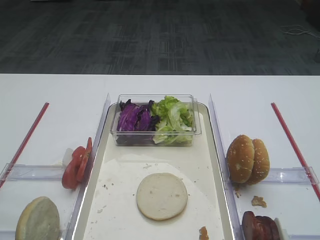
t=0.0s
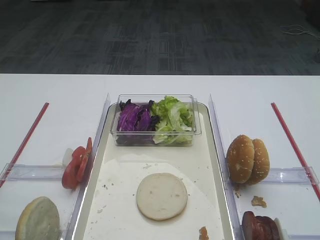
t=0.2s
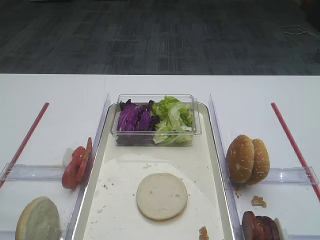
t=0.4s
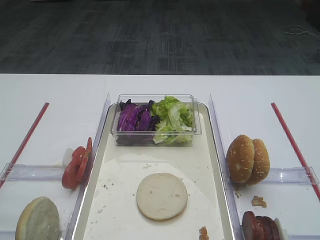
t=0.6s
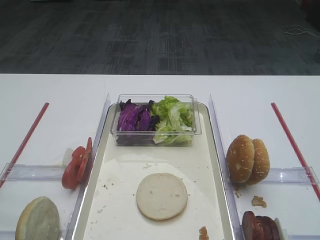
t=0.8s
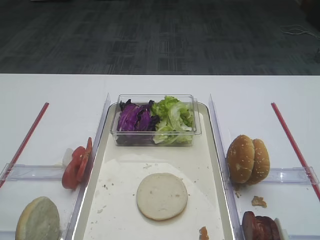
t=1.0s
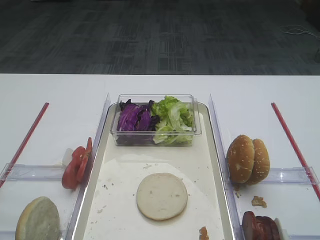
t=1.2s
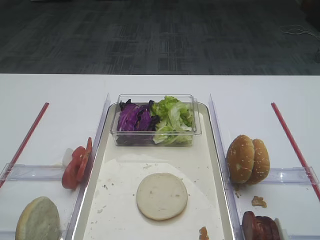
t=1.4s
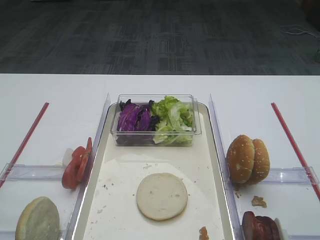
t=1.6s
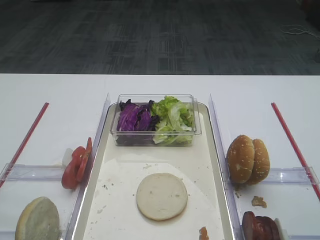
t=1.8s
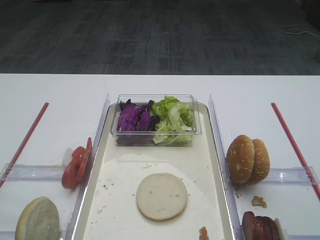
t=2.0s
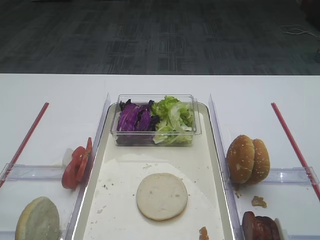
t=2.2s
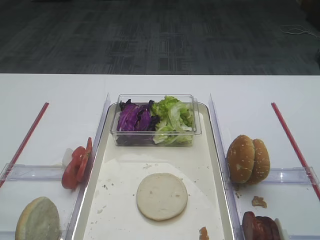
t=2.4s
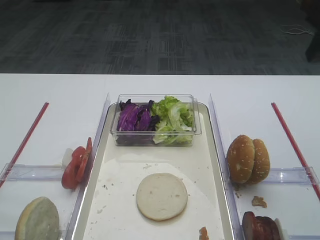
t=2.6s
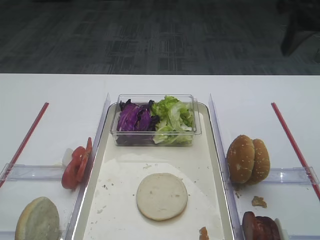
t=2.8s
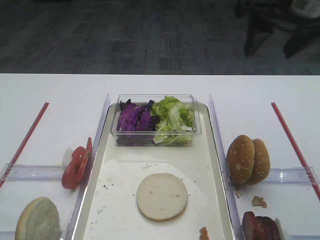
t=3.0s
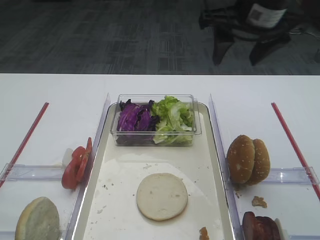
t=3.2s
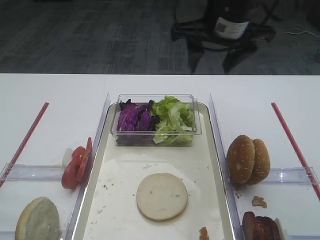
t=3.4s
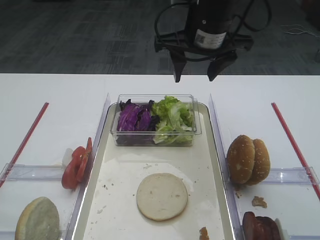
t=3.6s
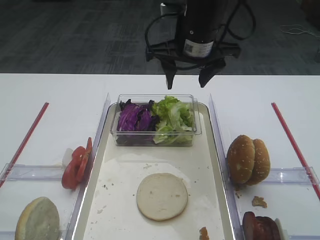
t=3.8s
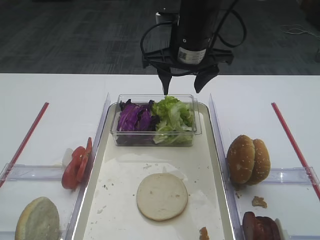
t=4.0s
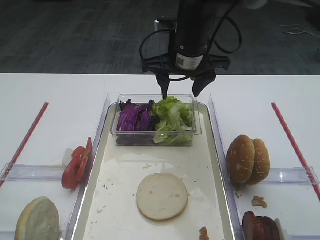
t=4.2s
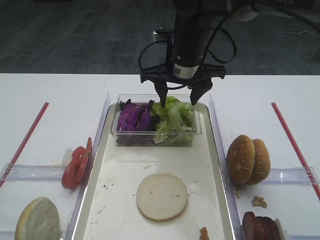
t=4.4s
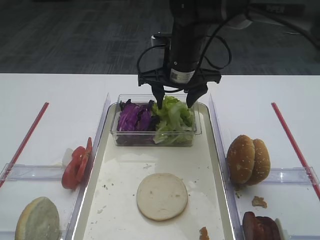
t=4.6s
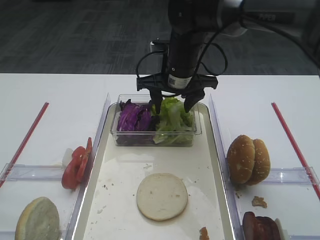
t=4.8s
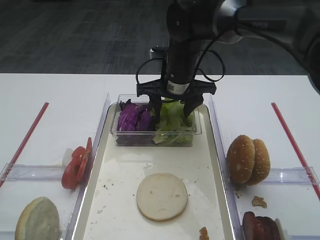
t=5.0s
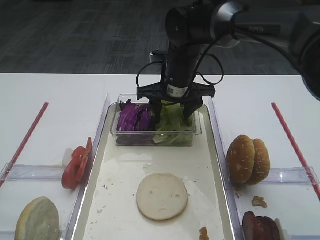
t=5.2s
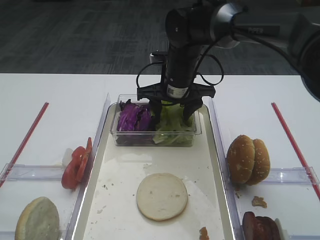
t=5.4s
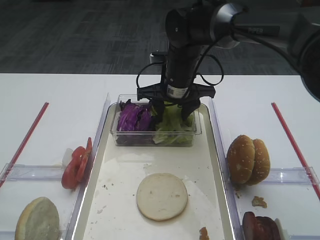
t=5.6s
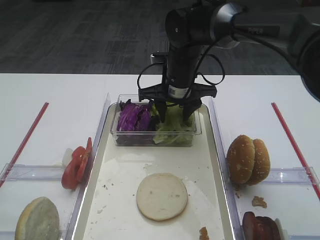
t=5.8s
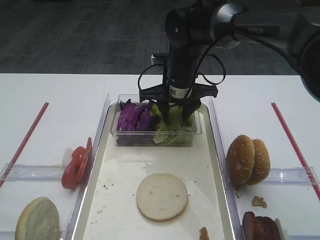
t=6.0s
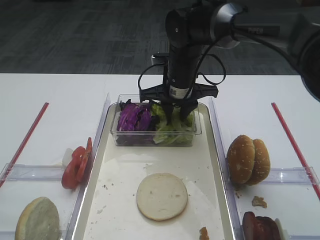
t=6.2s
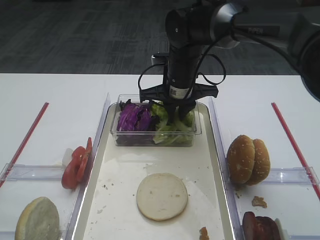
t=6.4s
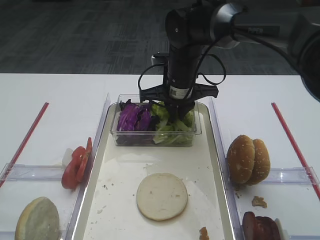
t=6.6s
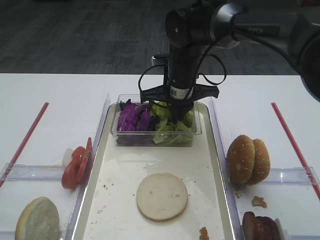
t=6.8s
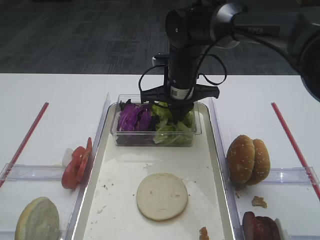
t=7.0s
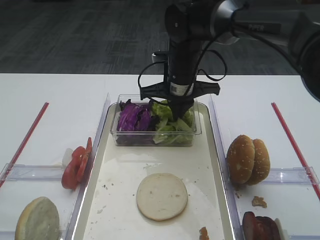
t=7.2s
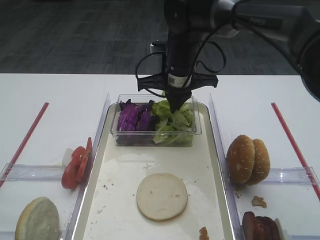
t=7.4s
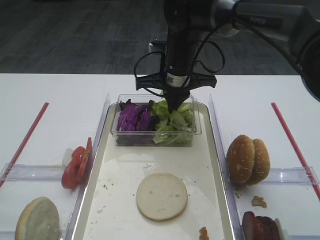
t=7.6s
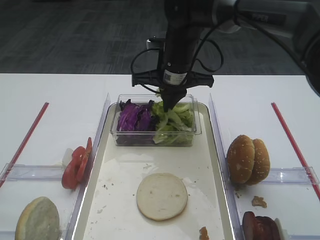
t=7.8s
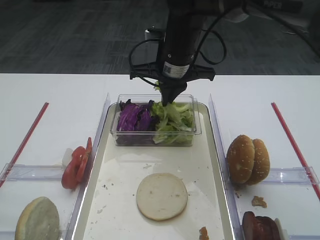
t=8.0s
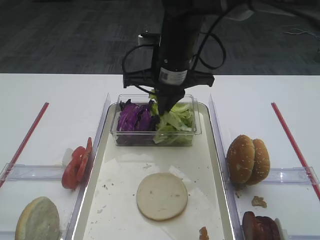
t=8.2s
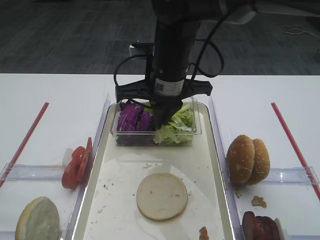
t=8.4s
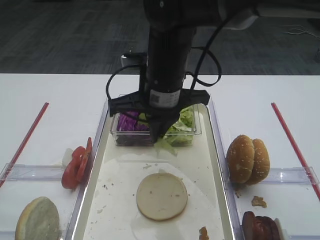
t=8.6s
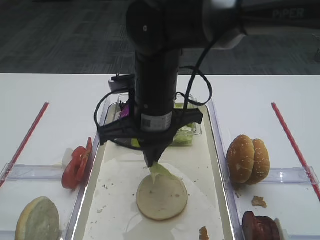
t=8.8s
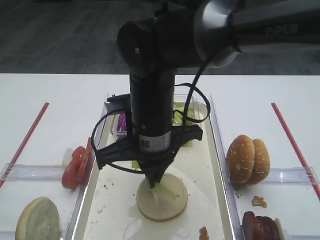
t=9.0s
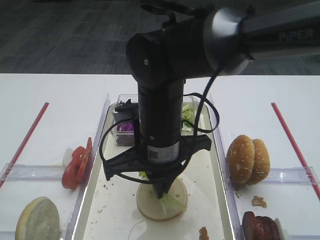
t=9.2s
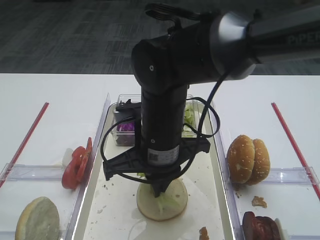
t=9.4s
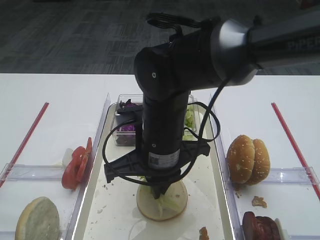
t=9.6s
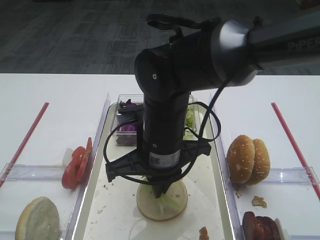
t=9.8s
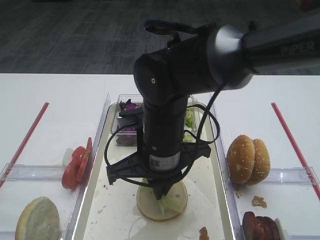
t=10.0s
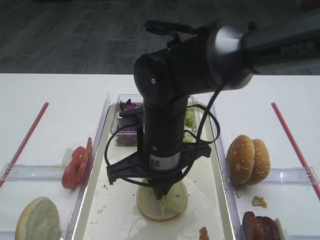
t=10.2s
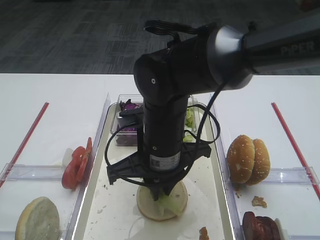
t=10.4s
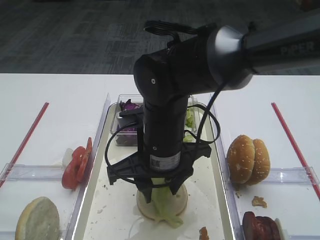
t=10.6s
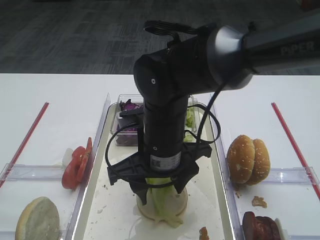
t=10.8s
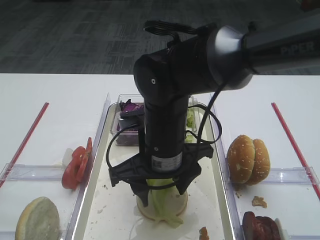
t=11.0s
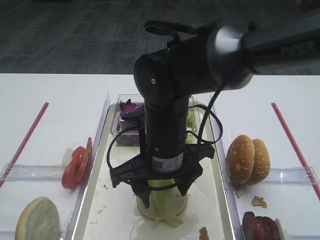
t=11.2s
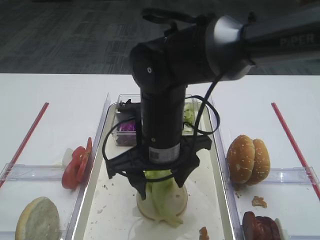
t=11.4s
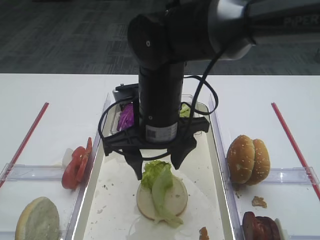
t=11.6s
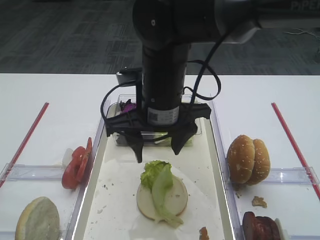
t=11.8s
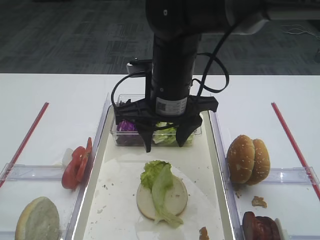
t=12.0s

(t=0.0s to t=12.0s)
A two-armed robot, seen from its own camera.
Step, t=0.0s - t=7.8s: Pick up the lettuce leaf with the right gripper.
Step, t=8.0s - t=11.4s: Place the lettuce leaf on the bread slice with the right gripper.
t=1.6s - t=3.0s: The right gripper moves forward, about 20 cm.
t=3.0s - t=4.4s: The right gripper travels to the left, downward and forward by about 20 cm.
t=4.4s - t=6.0s: The right gripper shifts approximately 5 cm downward.
t=6.0s - t=7.6s: The right gripper closes up.
t=7.6s - t=9.0s: The right gripper moves backward, roughly 15 cm.
t=9.0s - t=10.4s: The grippers move only a little.
t=10.4s - t=12.0s: The right gripper is displaced upward by approximately 5 cm, and opens.

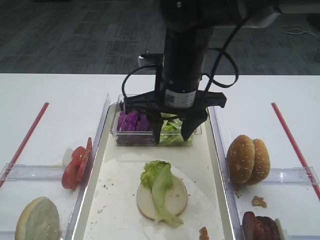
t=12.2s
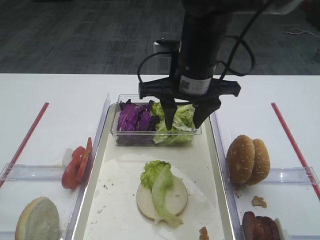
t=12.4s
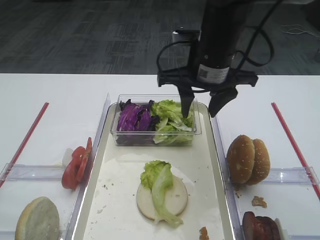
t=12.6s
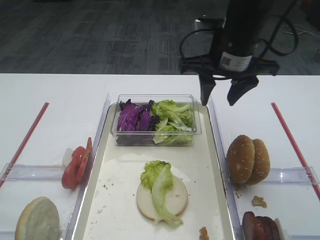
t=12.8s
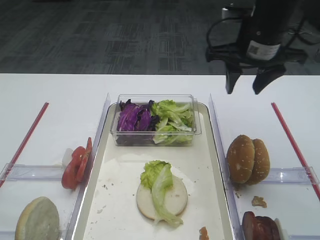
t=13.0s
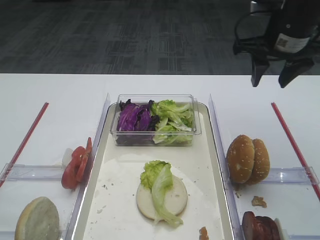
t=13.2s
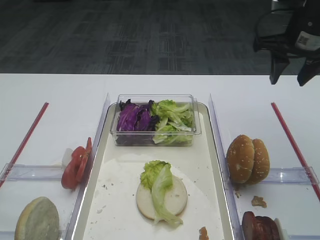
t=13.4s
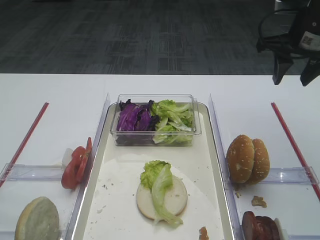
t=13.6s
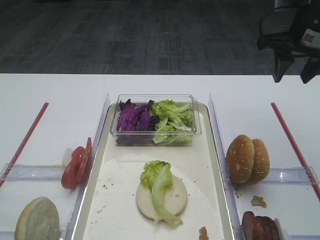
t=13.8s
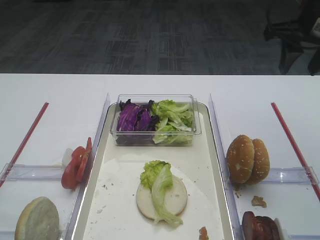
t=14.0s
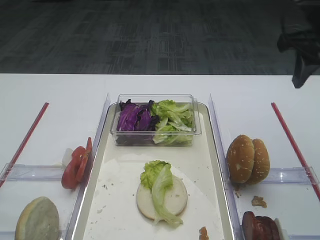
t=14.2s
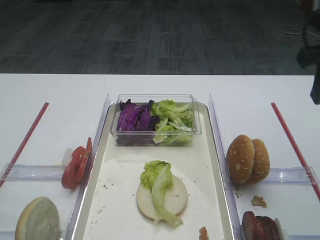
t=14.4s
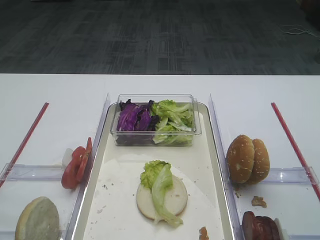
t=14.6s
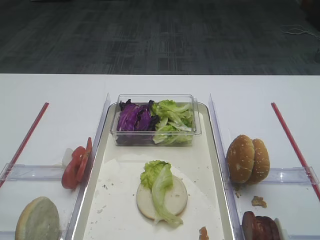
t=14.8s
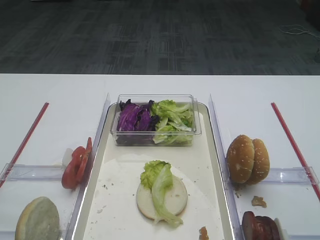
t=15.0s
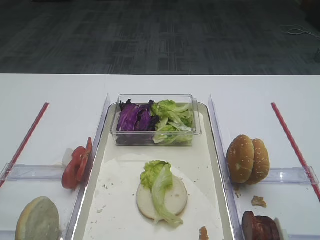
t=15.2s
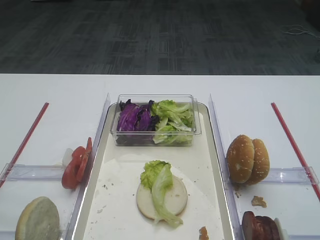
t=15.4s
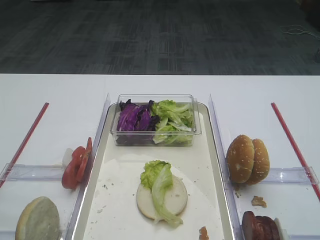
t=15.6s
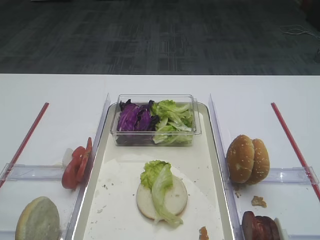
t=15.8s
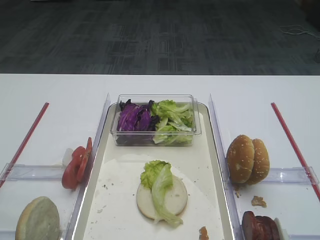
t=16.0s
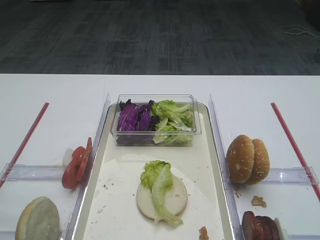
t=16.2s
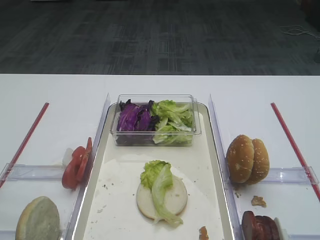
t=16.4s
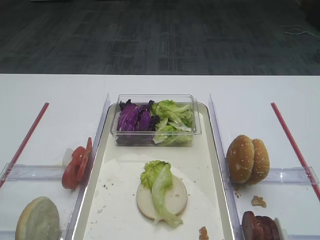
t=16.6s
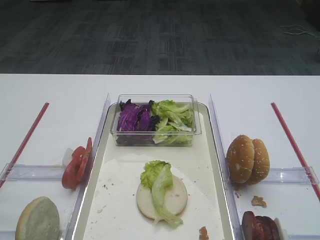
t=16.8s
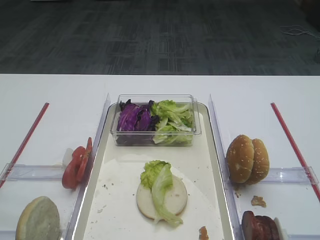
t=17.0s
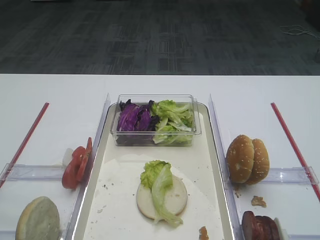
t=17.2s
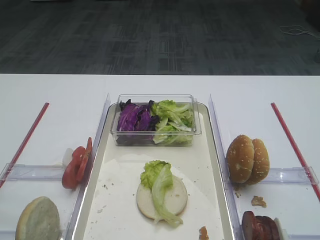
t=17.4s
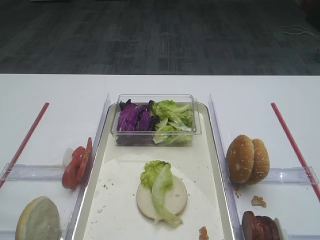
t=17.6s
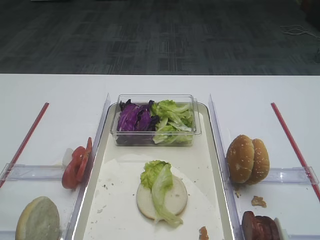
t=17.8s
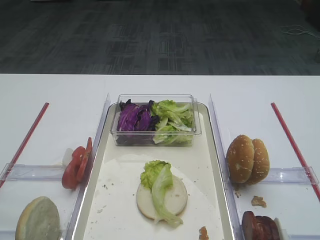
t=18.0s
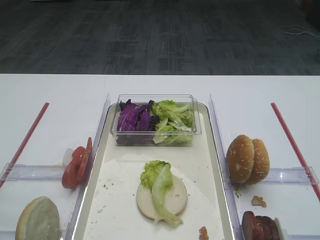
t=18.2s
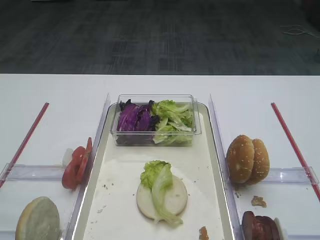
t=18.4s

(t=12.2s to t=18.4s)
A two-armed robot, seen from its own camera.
t=12.2s - t=13.8s: The right gripper travels to the right by approximately 20 cm.
t=13.8s - t=15.4s: The right gripper is displaced backward by some 35 cm.
t=16.8s - t=18.4s: The two grippers keep their place.

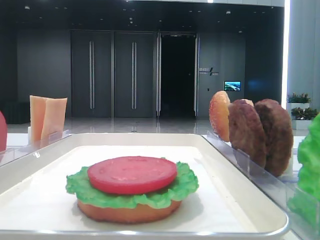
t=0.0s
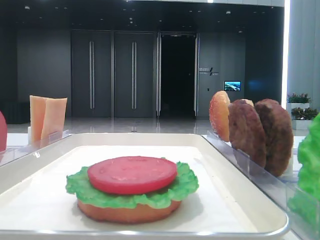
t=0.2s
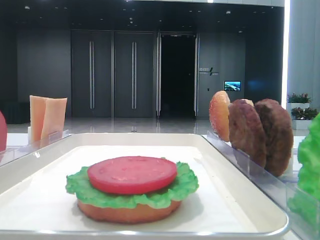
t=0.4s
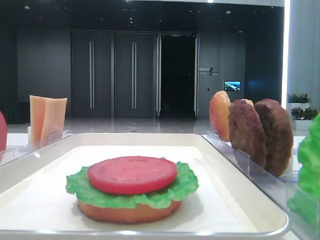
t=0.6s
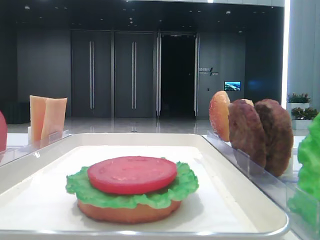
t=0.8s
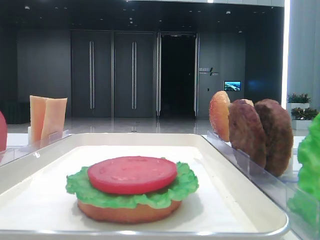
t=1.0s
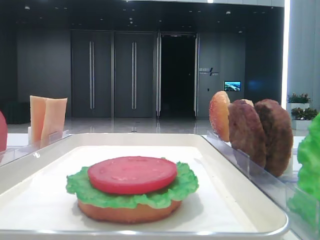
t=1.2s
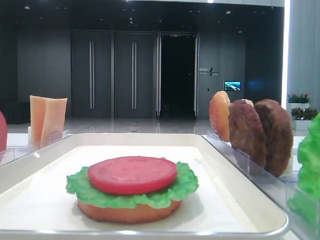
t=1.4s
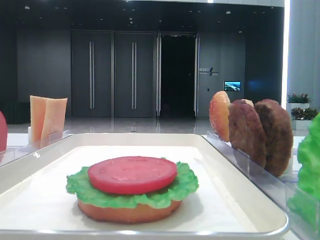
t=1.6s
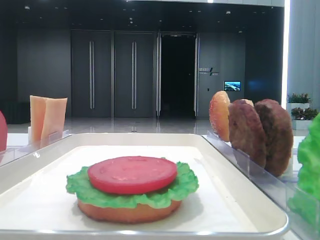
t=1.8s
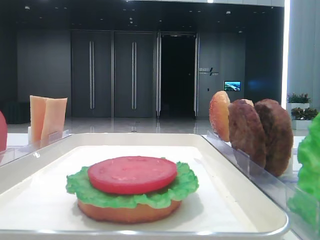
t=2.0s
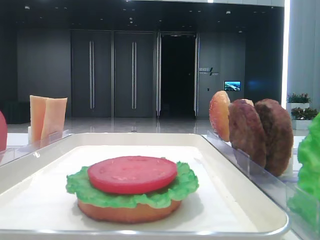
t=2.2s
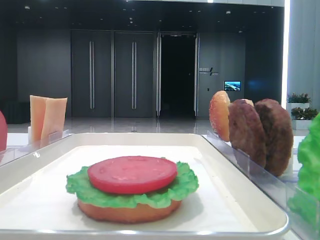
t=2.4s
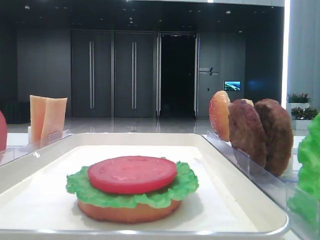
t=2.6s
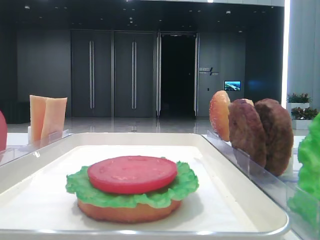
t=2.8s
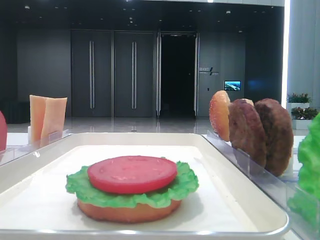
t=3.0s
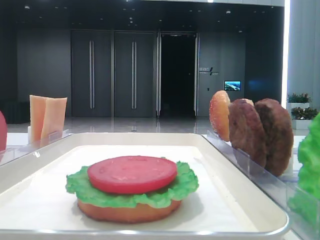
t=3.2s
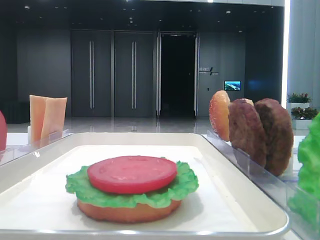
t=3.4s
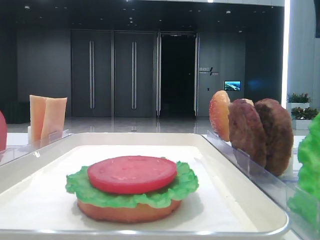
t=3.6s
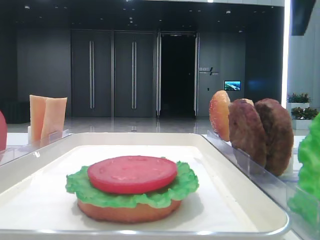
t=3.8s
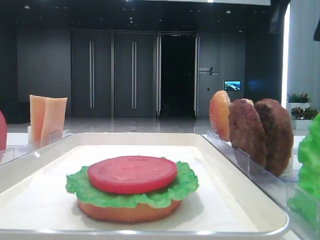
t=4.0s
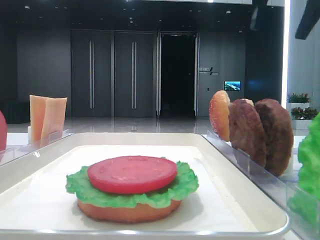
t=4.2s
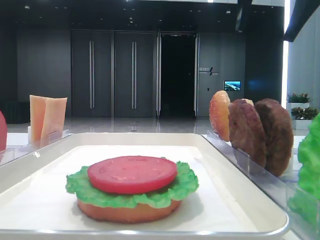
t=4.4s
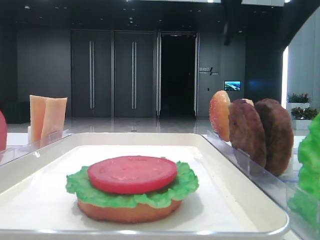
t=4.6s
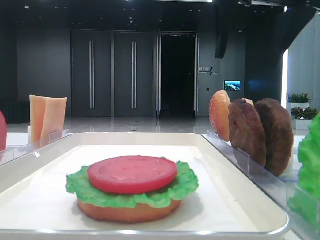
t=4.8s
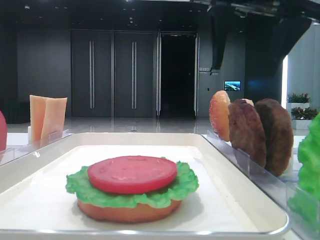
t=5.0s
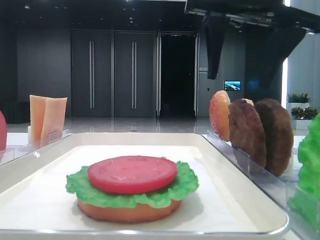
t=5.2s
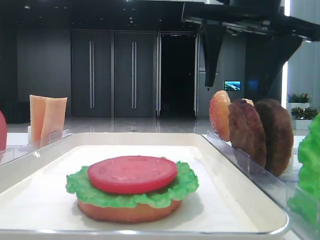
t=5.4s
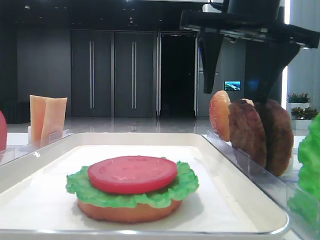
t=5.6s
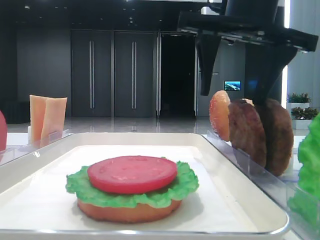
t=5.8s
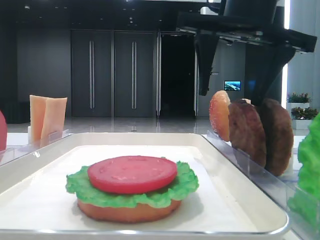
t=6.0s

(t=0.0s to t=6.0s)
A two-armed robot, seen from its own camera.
t=1.6s - t=3.0s: The right gripper goes about 25 cm forward.
t=3.0s - t=4.4s: The right gripper is displaced to the left by roughly 15 cm.
t=4.4s - t=6.0s: The right gripper travels downward and to the left by about 10 cm.
